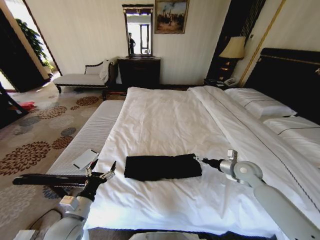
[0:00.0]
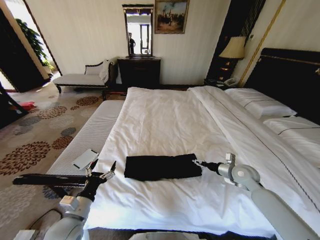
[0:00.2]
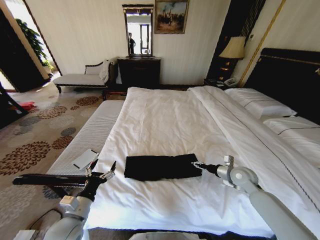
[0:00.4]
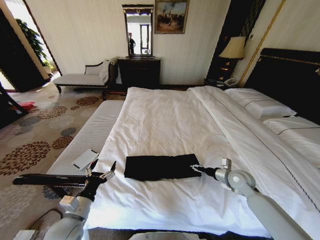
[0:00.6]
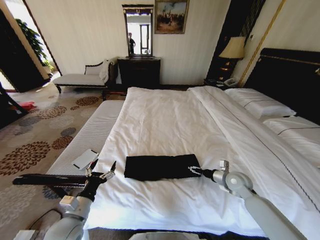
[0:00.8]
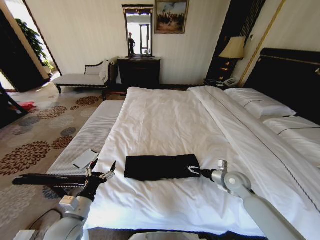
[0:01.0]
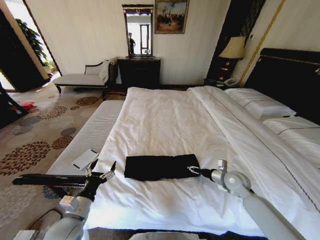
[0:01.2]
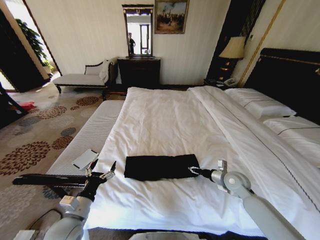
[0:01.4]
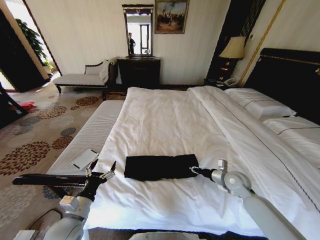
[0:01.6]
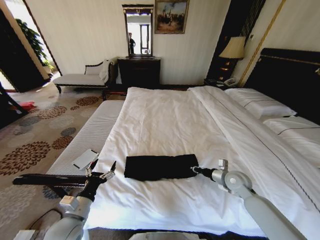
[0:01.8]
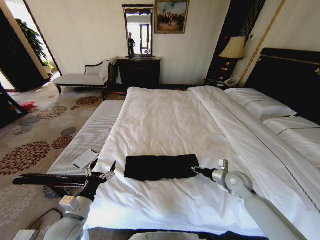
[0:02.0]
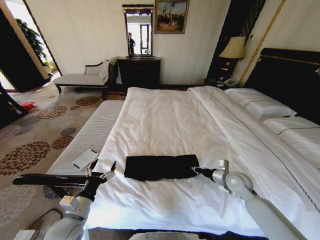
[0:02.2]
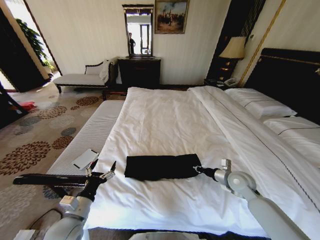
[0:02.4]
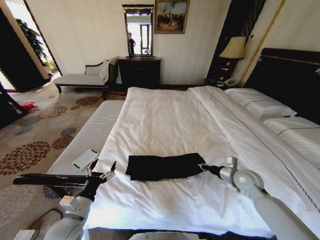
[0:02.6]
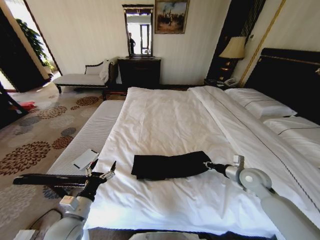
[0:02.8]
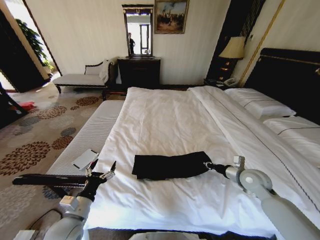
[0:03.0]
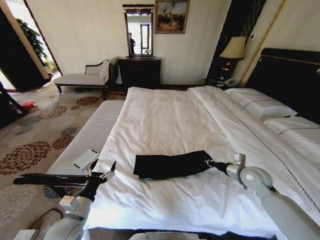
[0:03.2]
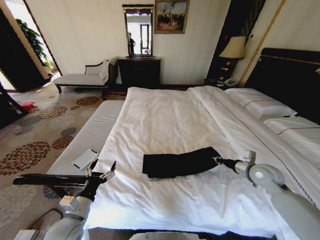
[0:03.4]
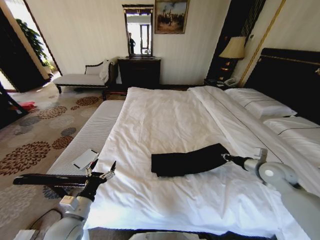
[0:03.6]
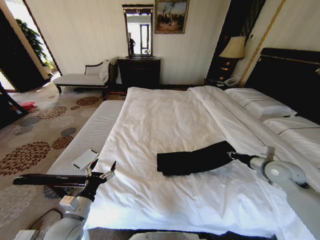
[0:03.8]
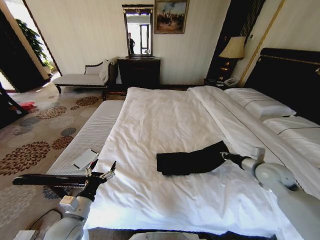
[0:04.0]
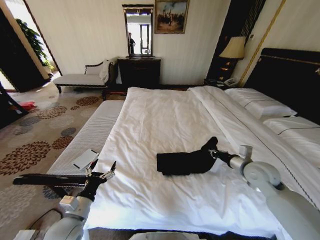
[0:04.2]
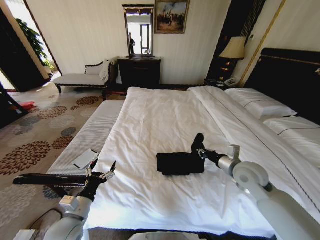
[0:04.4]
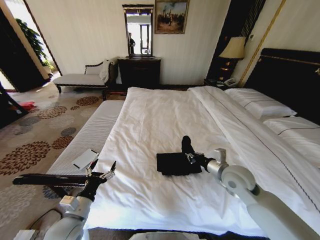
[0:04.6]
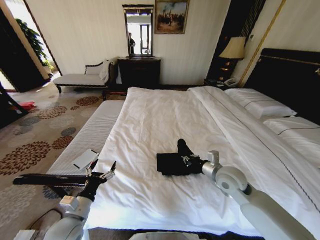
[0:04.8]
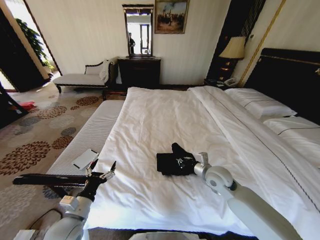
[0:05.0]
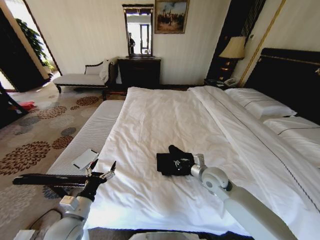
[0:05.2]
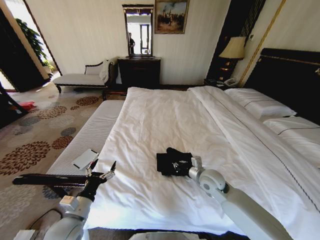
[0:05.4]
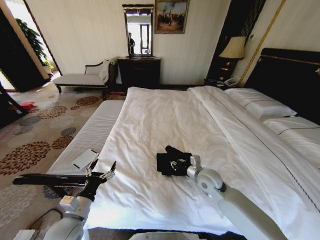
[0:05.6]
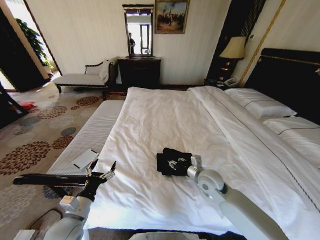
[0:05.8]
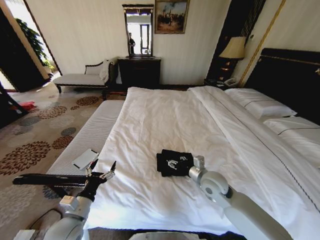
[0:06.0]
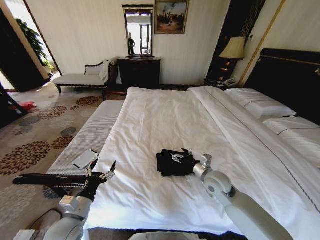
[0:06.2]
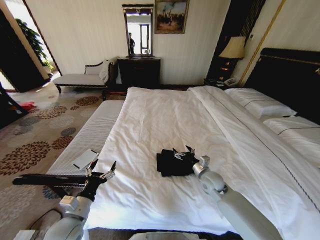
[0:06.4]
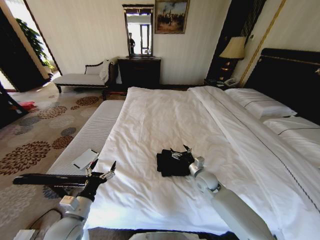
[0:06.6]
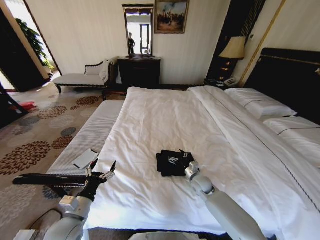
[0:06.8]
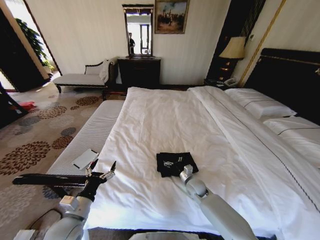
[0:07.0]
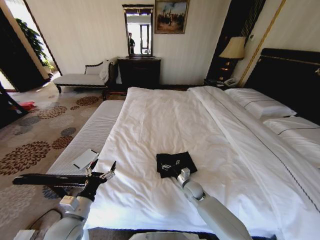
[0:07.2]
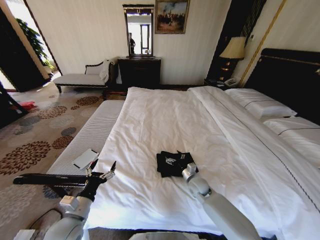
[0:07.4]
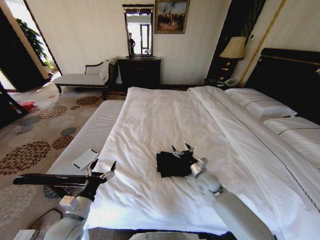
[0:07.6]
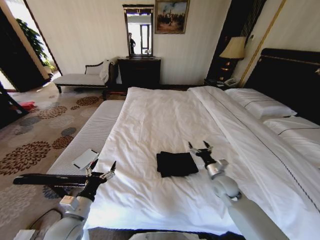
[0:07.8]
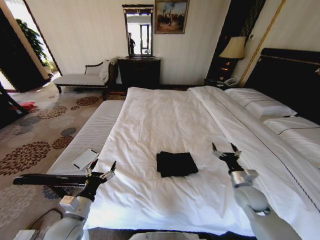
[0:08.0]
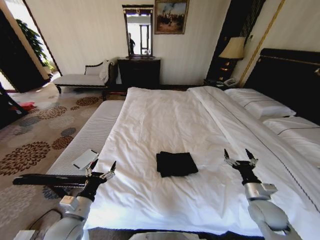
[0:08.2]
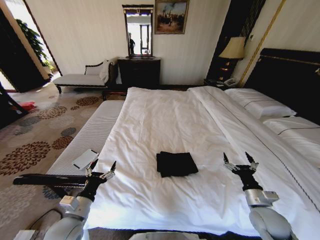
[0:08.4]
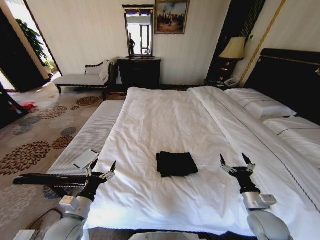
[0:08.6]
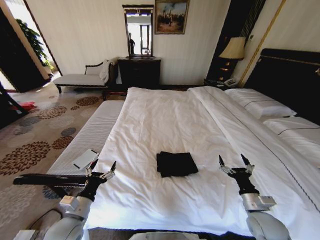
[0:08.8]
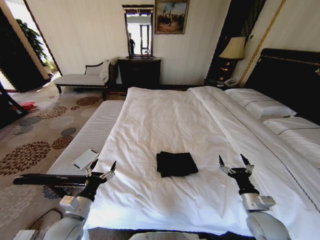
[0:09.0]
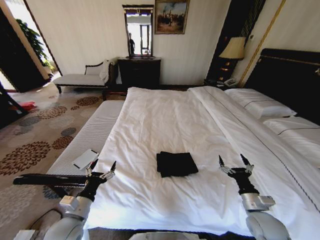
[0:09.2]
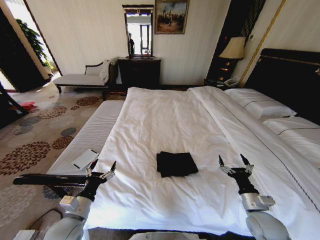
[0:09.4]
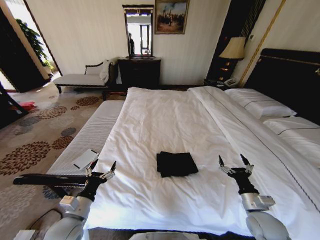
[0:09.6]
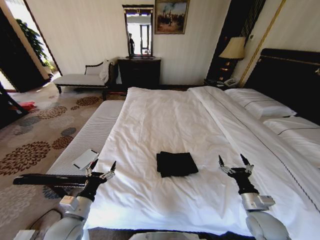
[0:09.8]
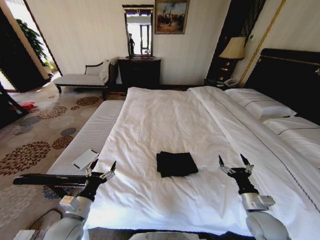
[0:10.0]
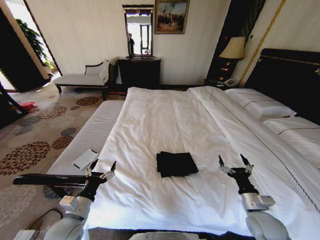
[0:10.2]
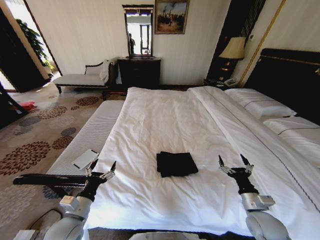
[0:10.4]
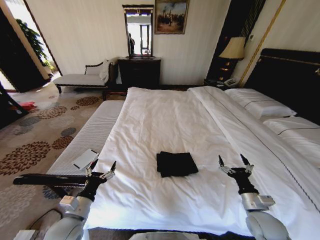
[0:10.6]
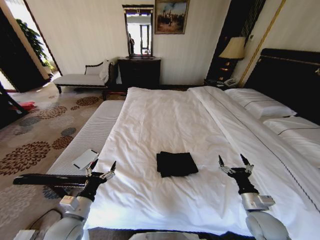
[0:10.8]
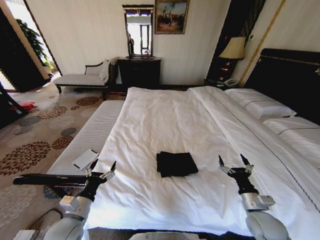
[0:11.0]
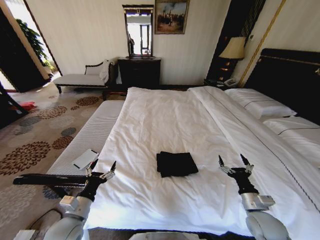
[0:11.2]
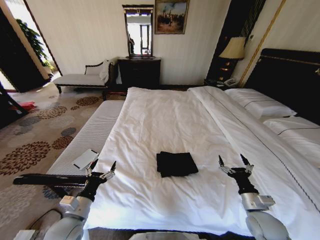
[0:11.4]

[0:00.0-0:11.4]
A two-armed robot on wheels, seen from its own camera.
Task of the whole recording: Fold the clothes on the bed.
0:00.0 to 0:01.4: The right gripper shifts roughly 5 cm downward, and closes.
0:01.4 to 0:02.8: The right gripper moves upward, approximately 5 cm, and closes up.
0:02.8 to 0:04.2: The right gripper travels upward by approximately 5 cm, and travels to the right and back again, approximately 5 cm each way.
0:04.2 to 0:05.6: The right gripper goes some 15 cm to the left and downward.
0:05.6 to 0:07.2: The right gripper shifts some 15 cm downward, and opens up.
0:07.2 to 0:08.6: The right gripper travels to the right, backward and upward by some 25 cm.
0:08.6 to 0:11.4: Both grippers stay about where they are.

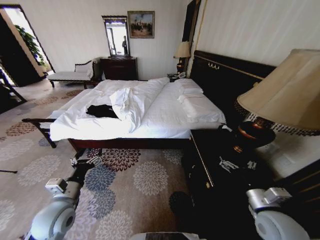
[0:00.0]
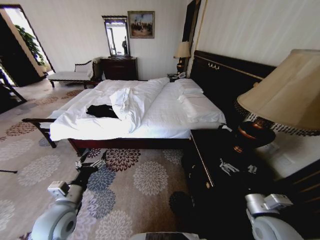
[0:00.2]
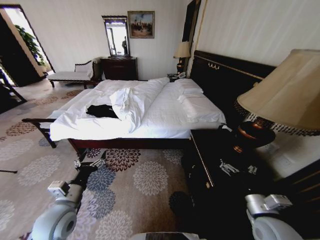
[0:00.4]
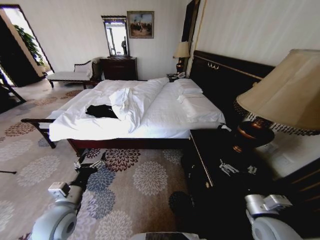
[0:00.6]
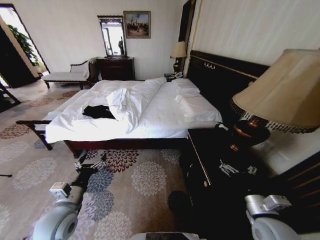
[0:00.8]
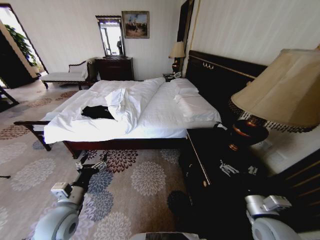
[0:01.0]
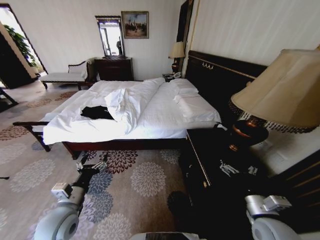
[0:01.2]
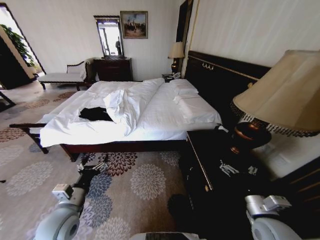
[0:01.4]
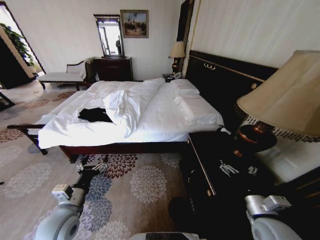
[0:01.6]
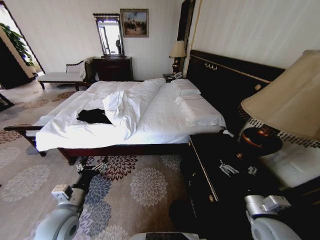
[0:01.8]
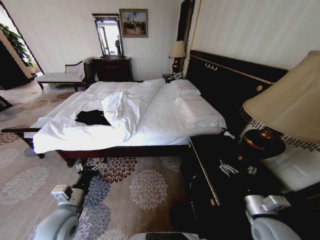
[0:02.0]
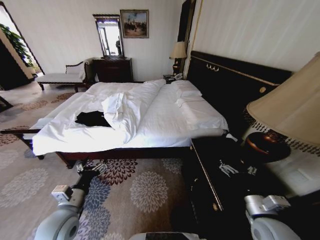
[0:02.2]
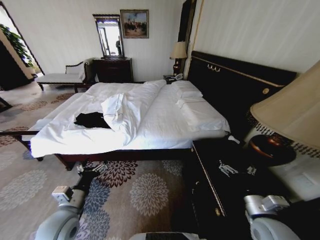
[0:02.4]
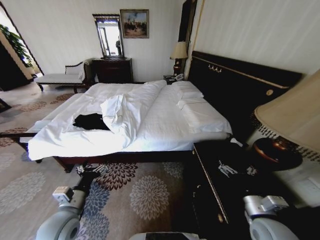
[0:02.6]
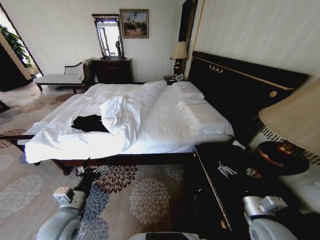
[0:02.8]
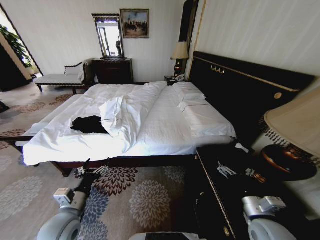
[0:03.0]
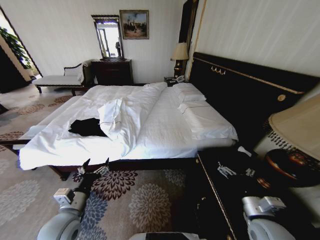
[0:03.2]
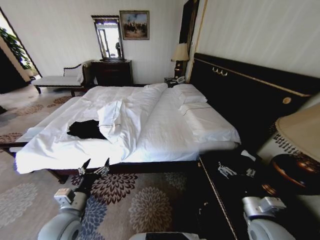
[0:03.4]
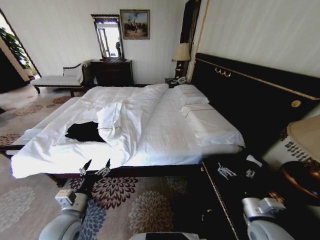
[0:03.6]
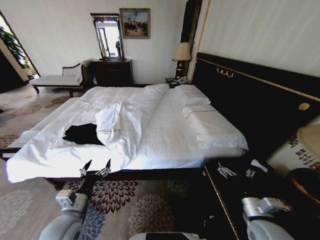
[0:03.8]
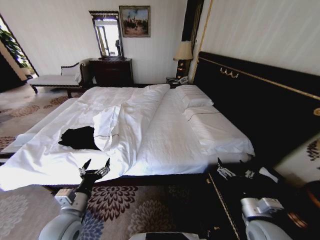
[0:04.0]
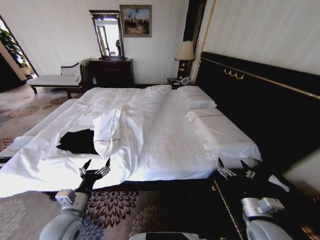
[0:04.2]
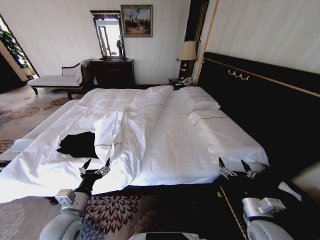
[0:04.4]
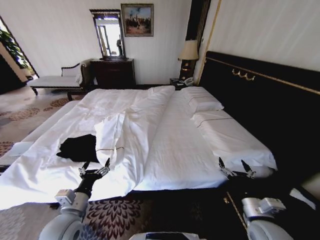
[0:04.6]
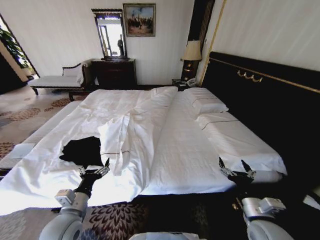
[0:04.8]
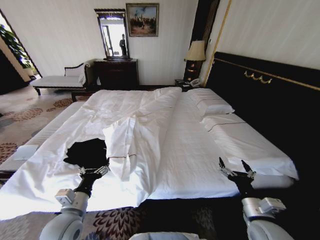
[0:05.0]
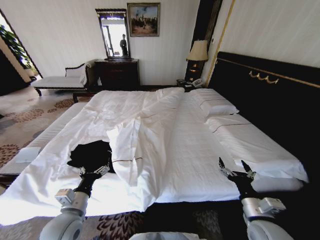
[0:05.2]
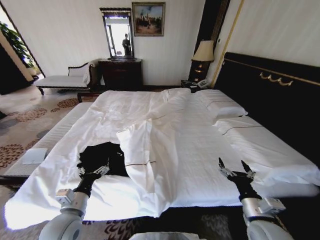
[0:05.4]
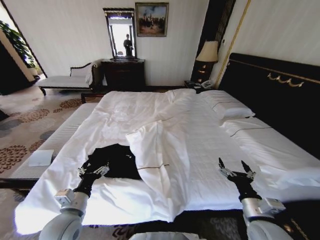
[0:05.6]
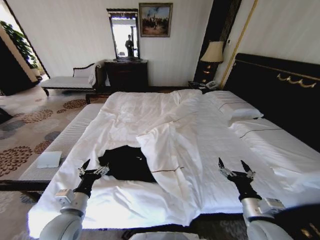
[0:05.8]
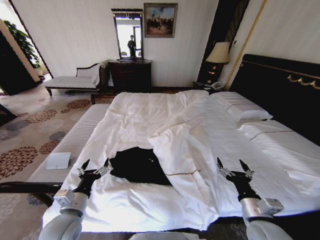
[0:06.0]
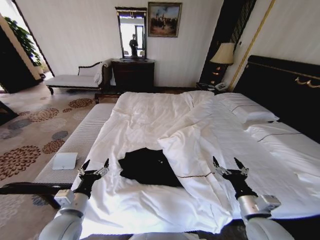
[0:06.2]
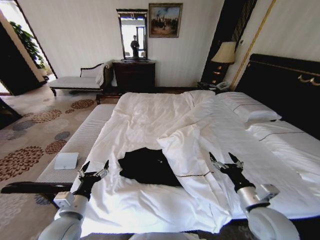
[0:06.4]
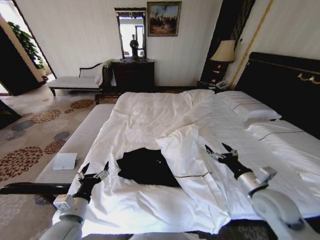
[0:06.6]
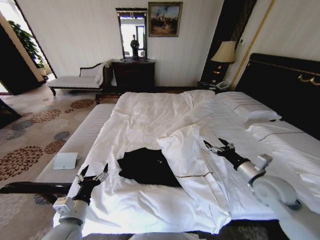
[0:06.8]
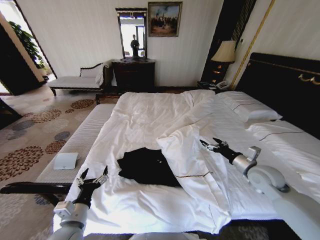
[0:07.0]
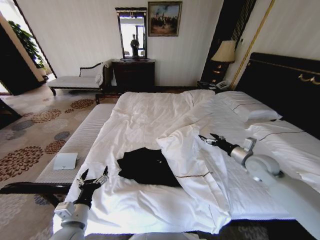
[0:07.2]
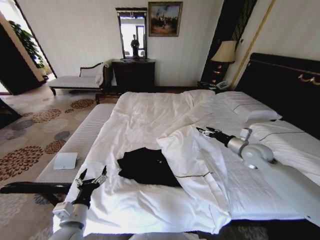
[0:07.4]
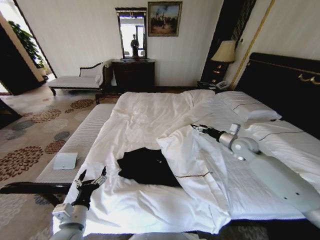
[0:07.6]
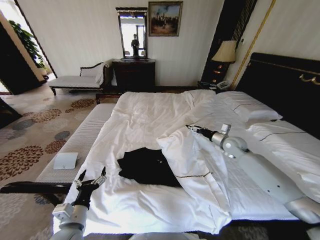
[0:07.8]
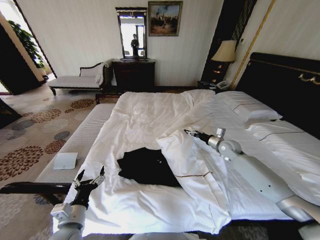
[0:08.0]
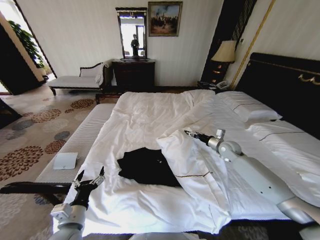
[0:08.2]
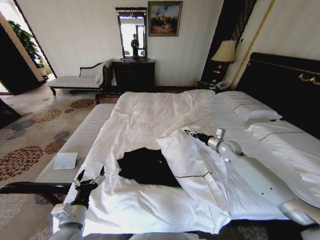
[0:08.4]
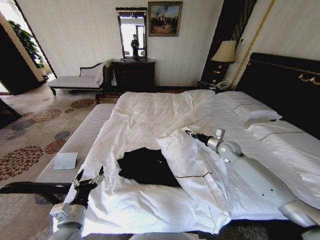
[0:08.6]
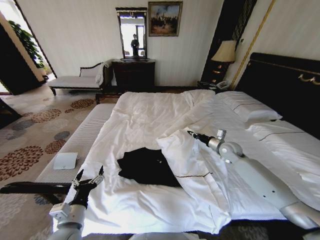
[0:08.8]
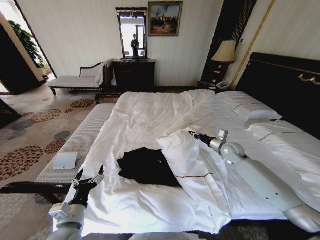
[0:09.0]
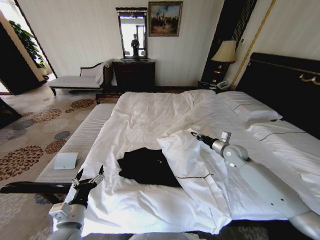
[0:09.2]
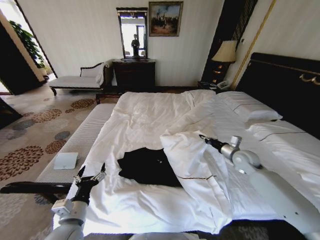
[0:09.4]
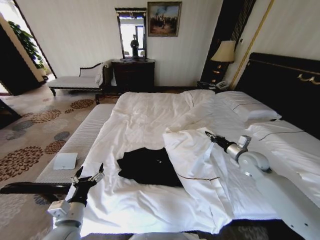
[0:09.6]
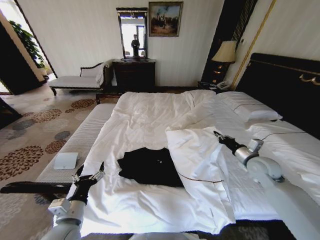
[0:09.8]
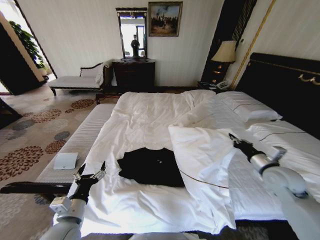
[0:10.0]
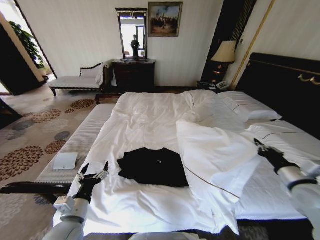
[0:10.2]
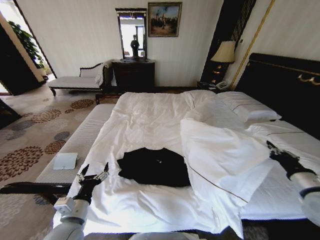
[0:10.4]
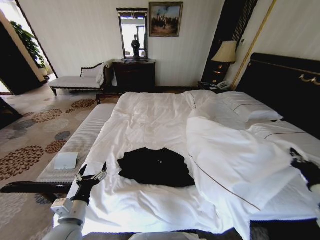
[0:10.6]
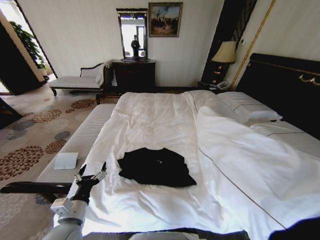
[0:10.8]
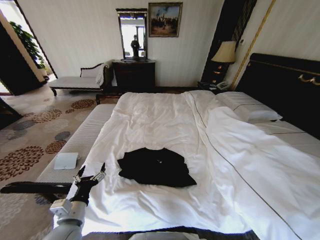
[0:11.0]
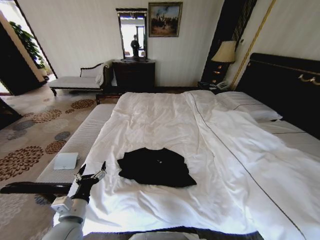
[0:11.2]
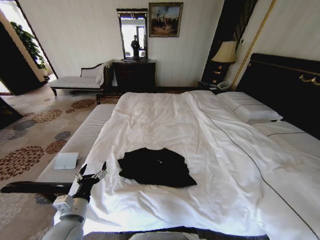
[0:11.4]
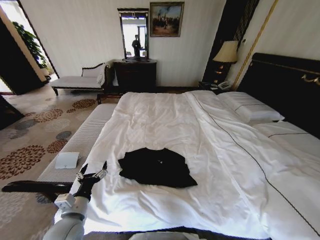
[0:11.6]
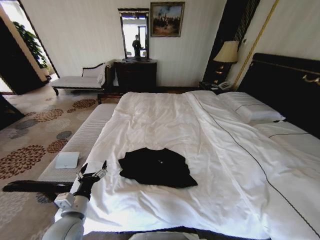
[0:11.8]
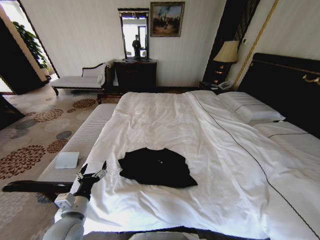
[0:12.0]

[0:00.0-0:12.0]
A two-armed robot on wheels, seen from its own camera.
Task of the whole recording: Fold the clothes on the bed.
0:06.0 to 0:07.6: The right gripper travels forward by roughly 30 cm.
0:07.6 to 0:09.0: The right gripper shifts by roughly 5 cm, and closes up.
0:09.0 to 0:10.4: The right gripper is displaced backward by about 25 cm.
0:10.4 to 0:12.0: The right gripper is displaced backward, to the right and downward by roughly 35 cm.
